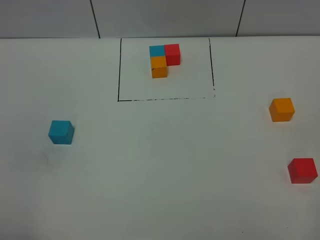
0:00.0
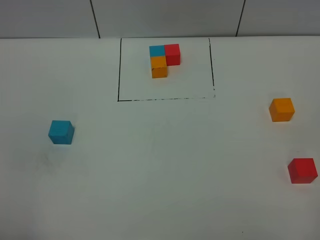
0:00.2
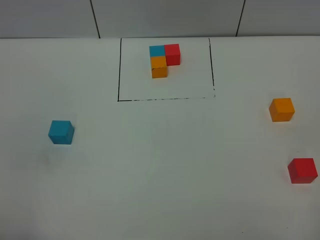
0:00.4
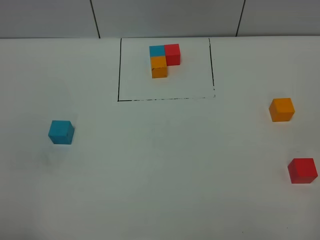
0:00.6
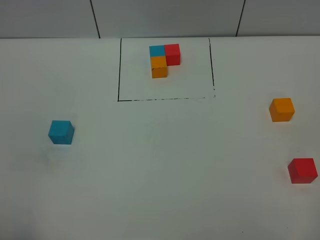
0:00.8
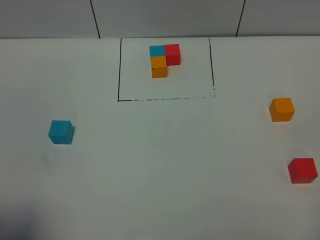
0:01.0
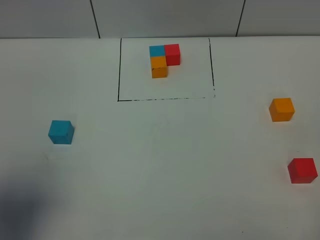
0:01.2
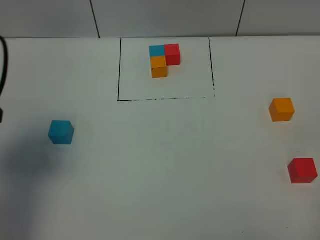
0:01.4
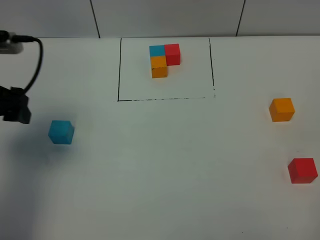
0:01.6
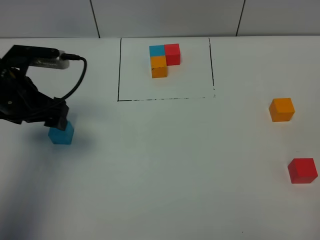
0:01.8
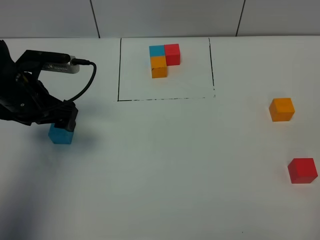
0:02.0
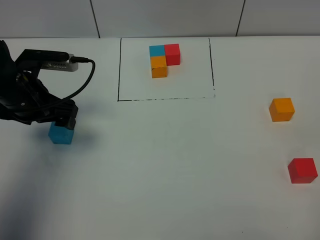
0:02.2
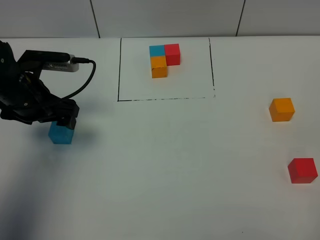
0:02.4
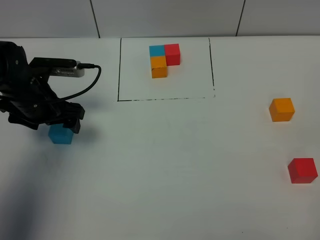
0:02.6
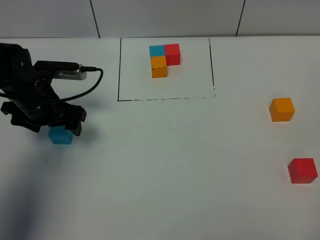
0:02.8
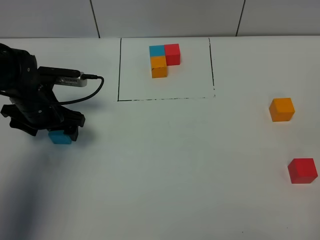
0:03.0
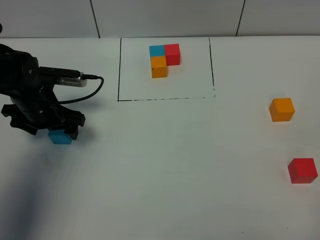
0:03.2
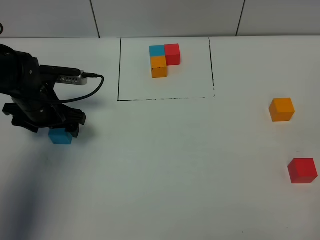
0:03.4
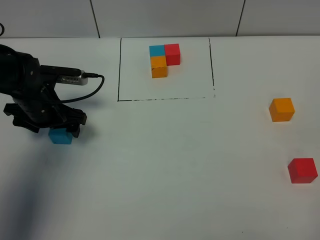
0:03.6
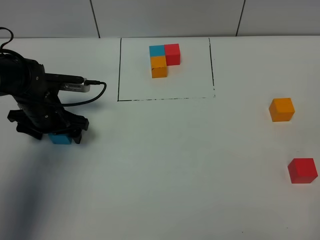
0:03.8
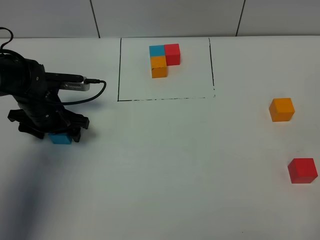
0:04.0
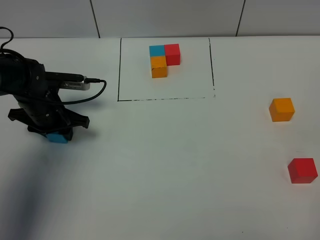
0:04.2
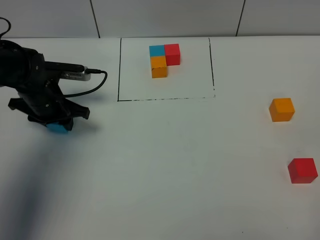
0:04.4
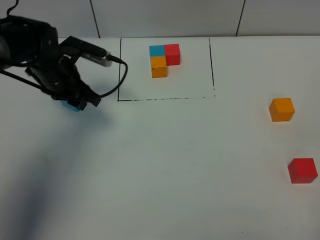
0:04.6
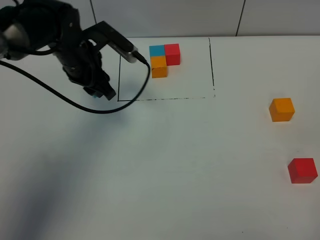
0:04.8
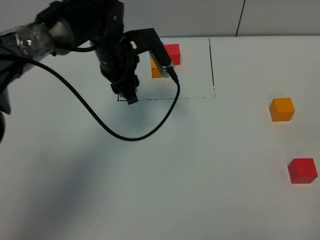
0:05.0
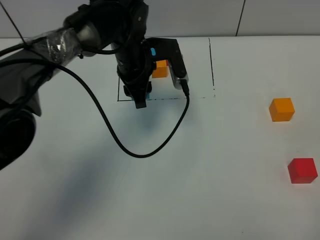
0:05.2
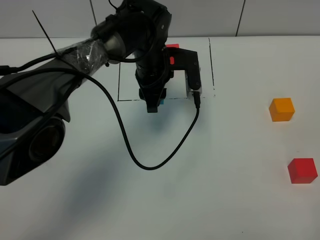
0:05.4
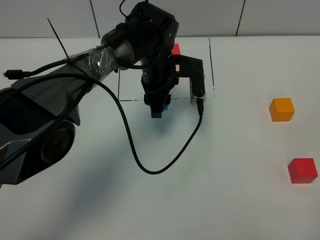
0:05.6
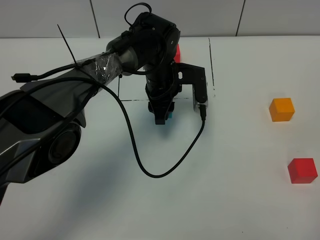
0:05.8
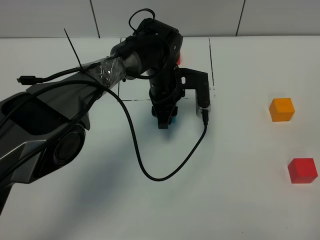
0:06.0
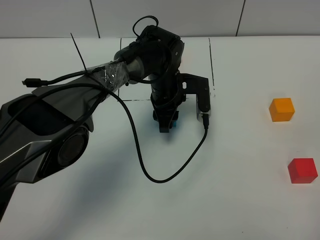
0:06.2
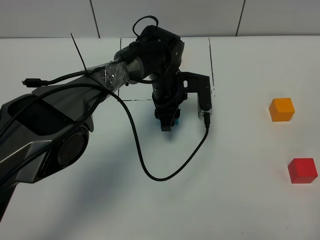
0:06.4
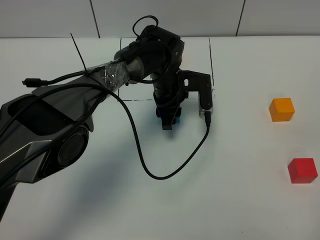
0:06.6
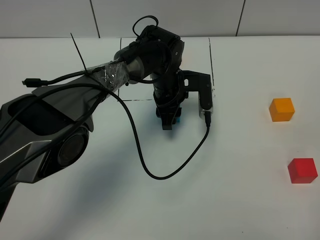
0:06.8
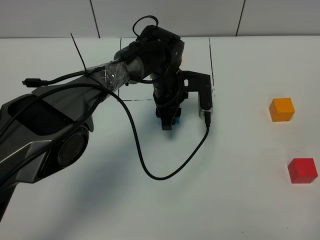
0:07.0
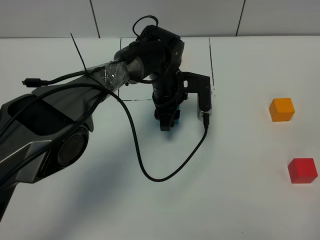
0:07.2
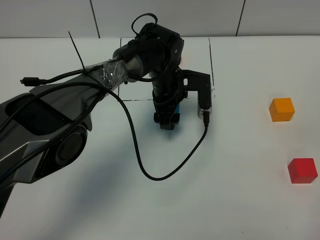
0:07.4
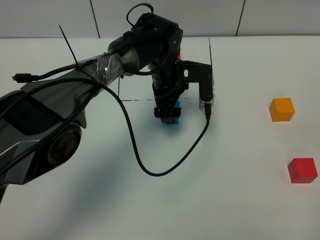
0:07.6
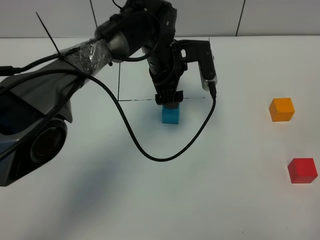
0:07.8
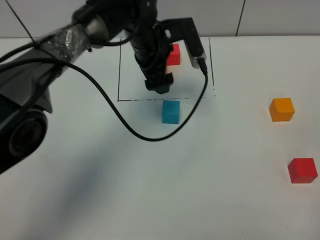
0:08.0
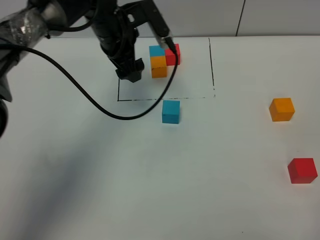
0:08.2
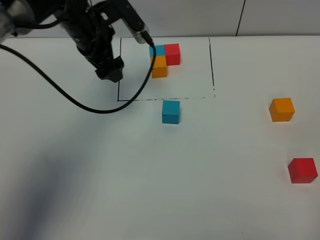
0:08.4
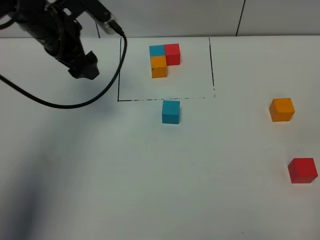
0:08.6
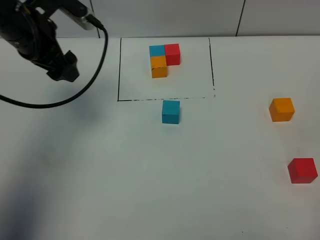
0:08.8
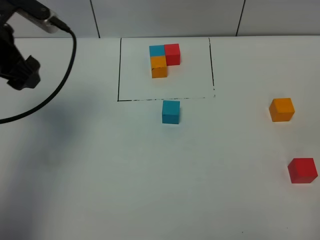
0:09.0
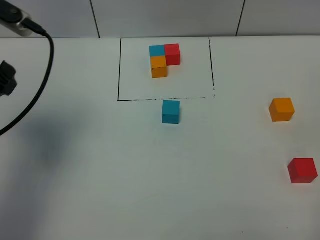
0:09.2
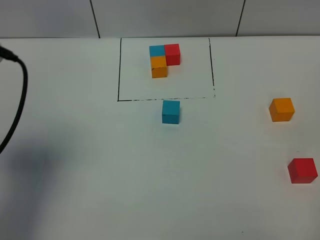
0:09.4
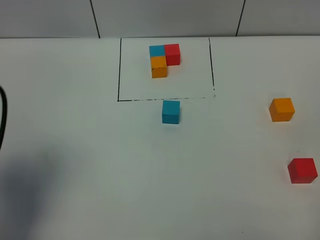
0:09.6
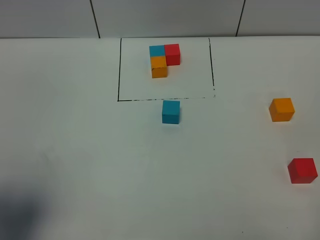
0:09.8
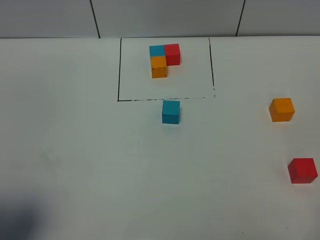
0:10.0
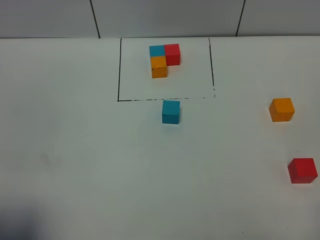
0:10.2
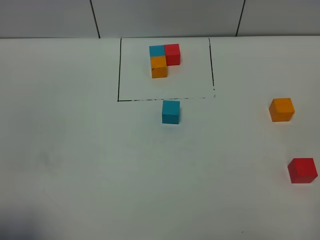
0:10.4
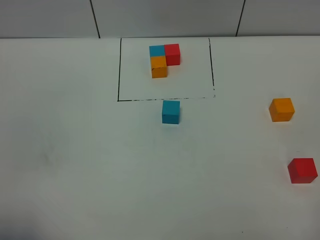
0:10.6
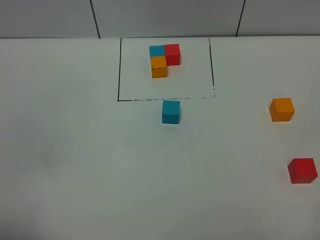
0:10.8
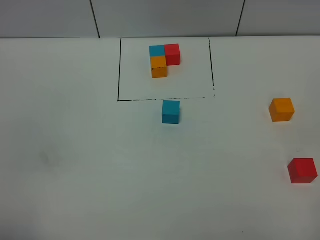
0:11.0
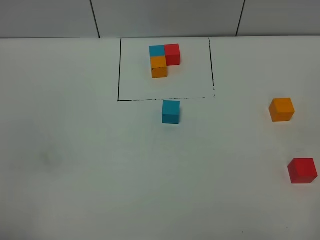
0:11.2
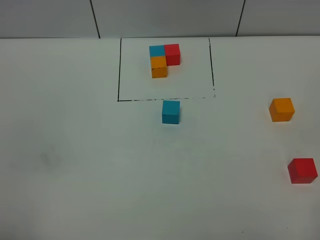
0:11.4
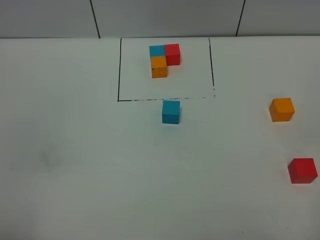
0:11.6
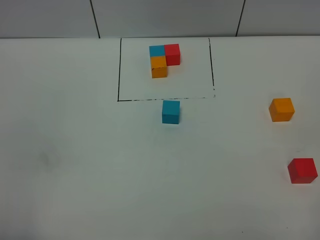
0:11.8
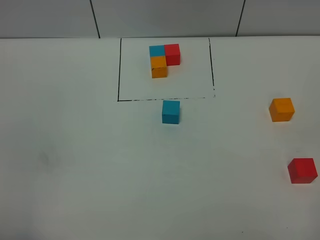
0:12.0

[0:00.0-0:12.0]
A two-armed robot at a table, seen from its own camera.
Task of the whole recording: According to the building block template in front, assemble the scattered blocks together.
Step, 0:00.0 to 0:07.2: Put the blue build block in the center of the table.
0:00.0 to 0:01.6: The left gripper travels forward by approximately 30 cm.
0:01.6 to 0:03.0: The left gripper shifts about 15 cm downward and forward.
0:03.0 to 0:04.4: The left gripper closes.
0:04.4 to 0:06.0: The left gripper goes approximately 25 cm to the right.
0:06.0 to 0:07.6: The left gripper opens.
0:07.6 to 0:09.0: The left gripper moves to the left and upward, approximately 30 cm.
0:09.0 to 0:10.4: The left gripper is displaced backward by roughly 30 cm.

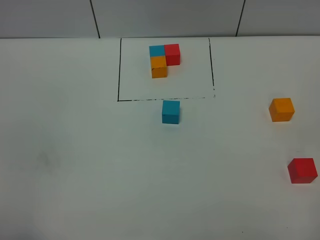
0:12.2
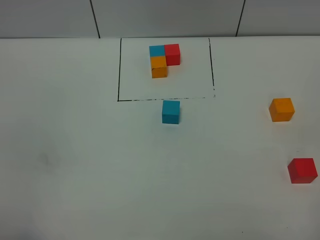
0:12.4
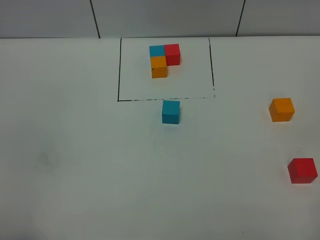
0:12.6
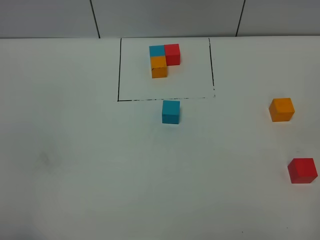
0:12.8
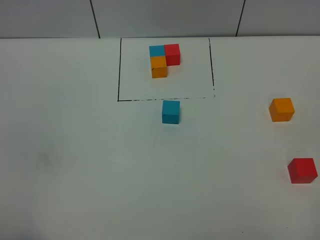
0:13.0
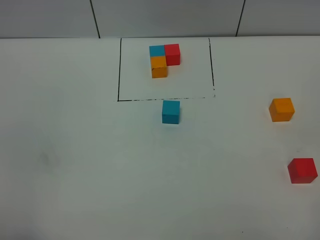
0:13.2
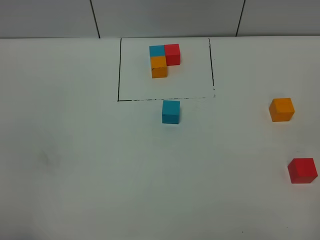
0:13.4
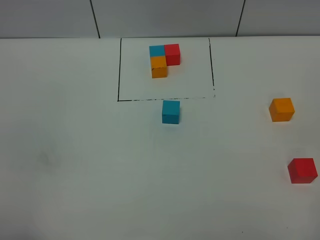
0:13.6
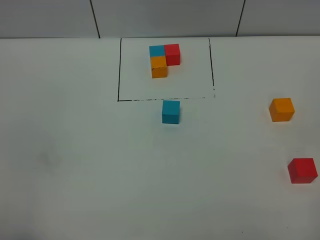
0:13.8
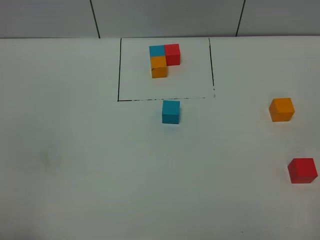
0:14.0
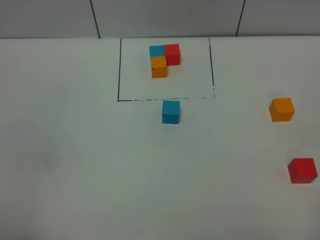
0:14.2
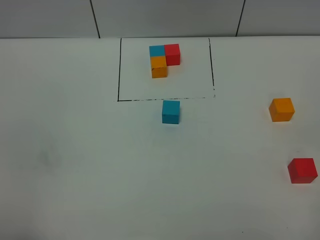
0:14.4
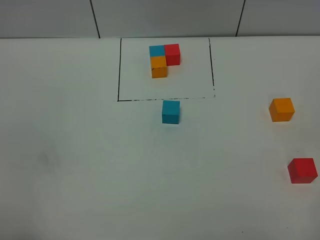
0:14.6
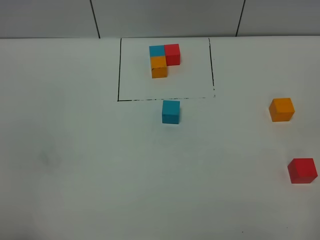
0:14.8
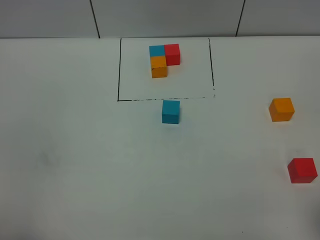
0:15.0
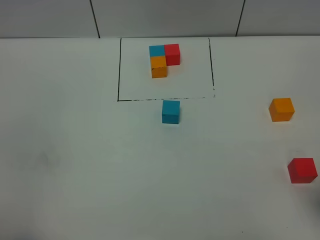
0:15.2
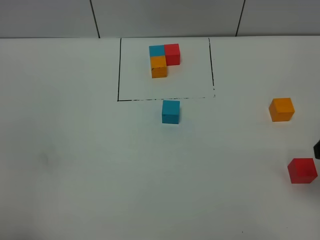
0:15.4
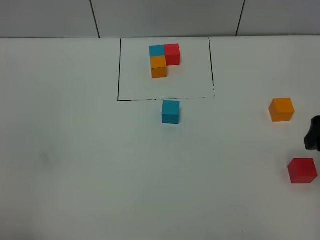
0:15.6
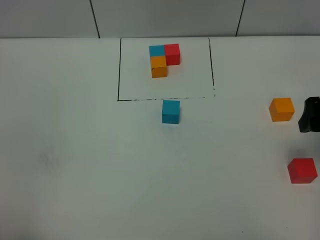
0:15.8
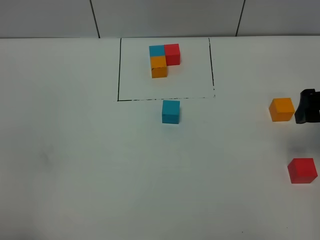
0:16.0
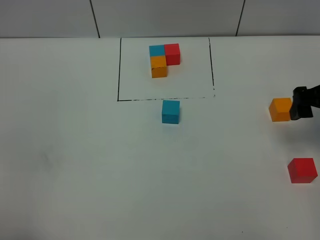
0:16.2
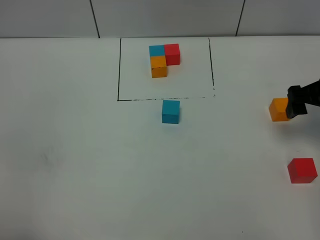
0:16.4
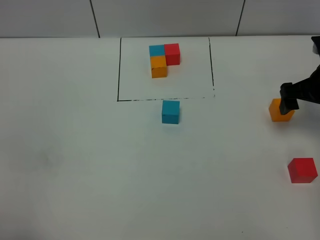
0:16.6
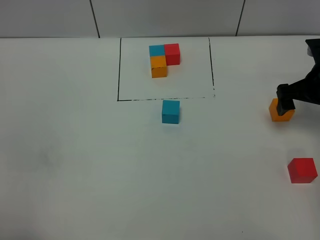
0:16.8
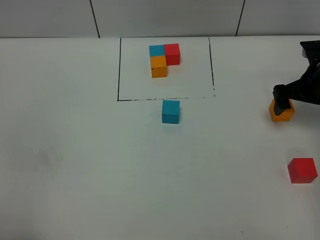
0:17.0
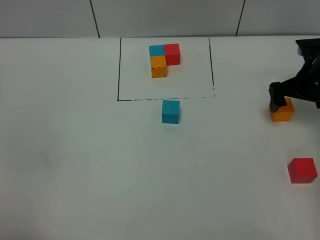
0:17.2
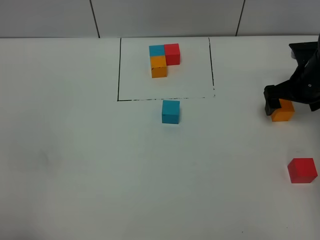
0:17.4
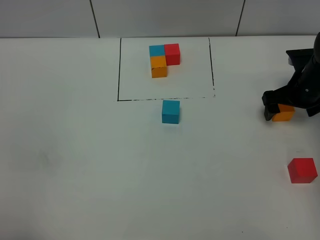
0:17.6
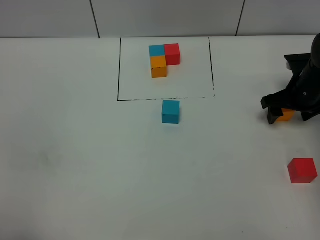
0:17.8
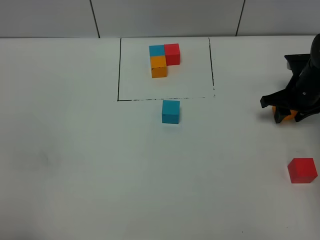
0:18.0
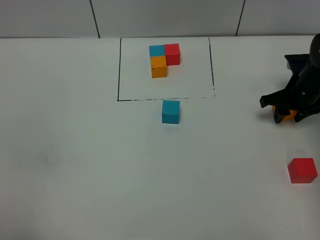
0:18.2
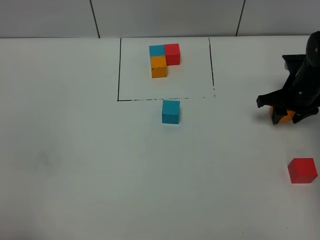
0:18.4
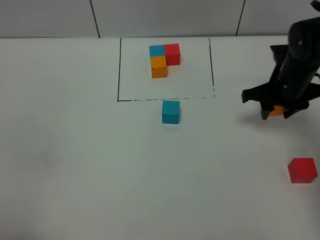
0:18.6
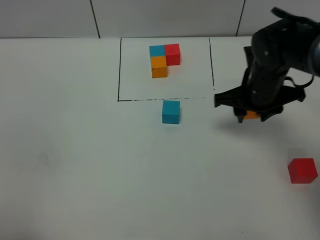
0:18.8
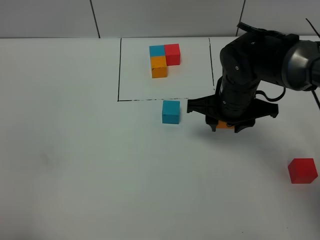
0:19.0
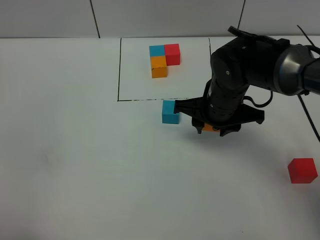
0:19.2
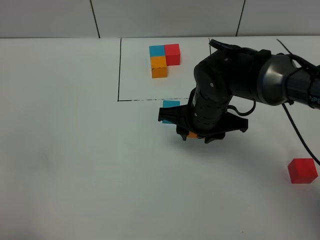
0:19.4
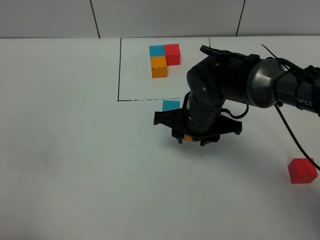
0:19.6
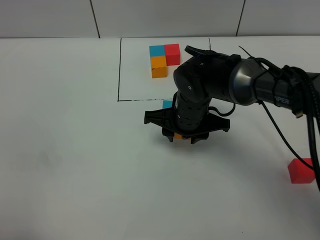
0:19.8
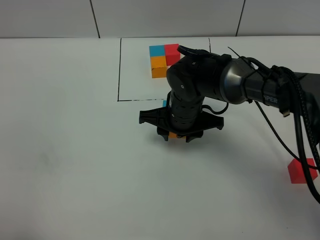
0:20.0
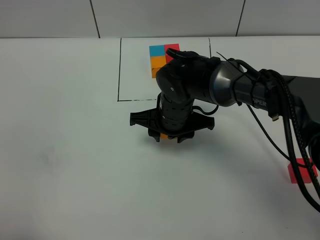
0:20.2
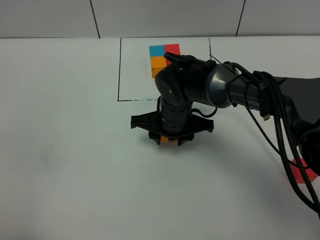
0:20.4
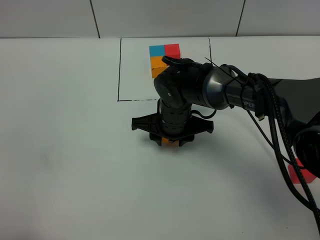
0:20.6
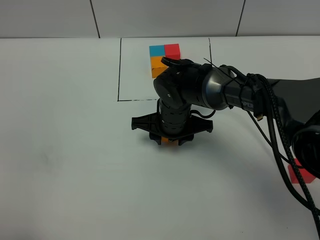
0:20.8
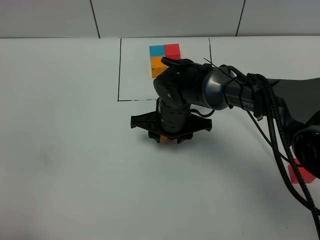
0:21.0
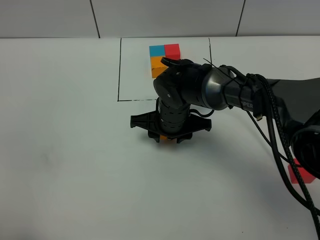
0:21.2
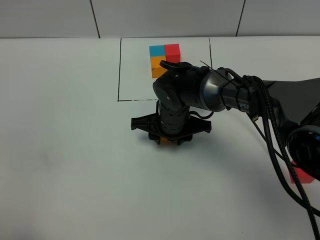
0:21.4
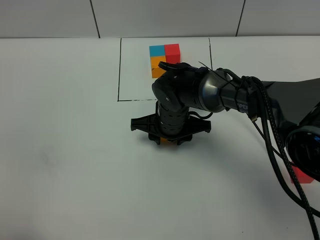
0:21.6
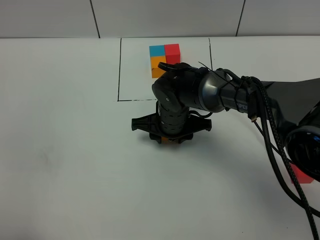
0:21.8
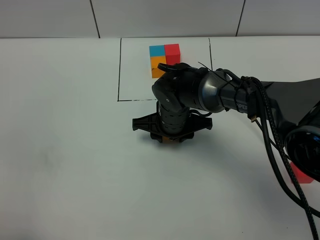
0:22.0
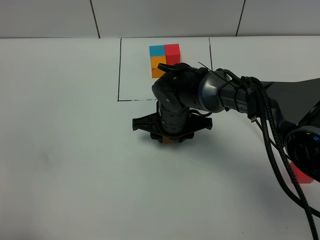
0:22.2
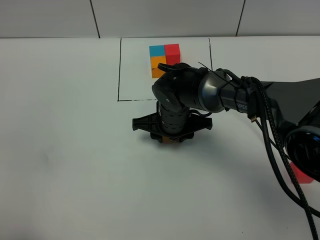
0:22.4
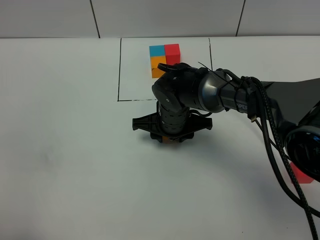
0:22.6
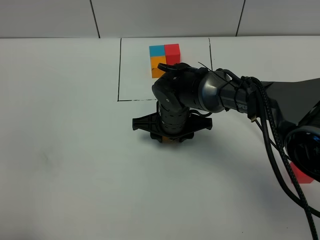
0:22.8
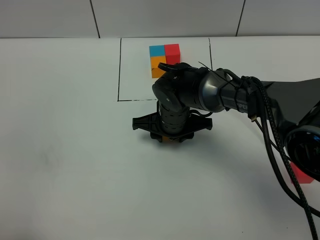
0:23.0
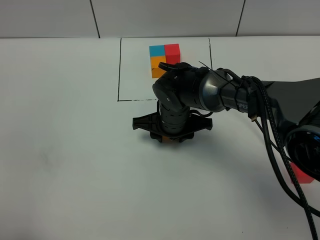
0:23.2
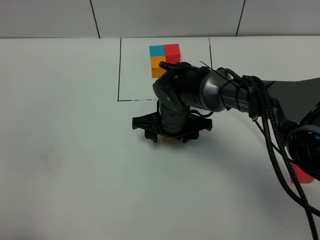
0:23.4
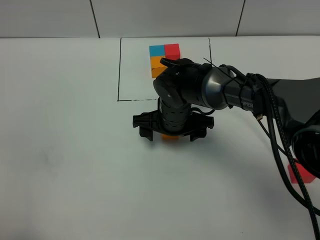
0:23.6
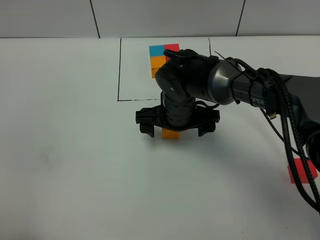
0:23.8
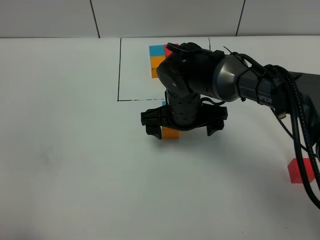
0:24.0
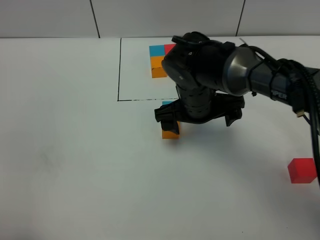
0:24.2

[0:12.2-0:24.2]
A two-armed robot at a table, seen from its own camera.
Task of the whole recording: According to the building block template in front, assemble the scattered blocks together.
Step, 0:12.2 to 0:23.2: Put the orange build block on the behind of the blue build block.
0:12.2 to 0:13.8: Both grippers stay put.
0:15.2 to 0:16.6: The right gripper moves forward and downward, about 25 cm.
0:16.6 to 0:18.2: The right gripper moves downward, about 5 cm, and closes.
0:18.2 to 0:19.8: The right gripper shifts some 25 cm to the left.
0:19.8 to 0:21.2: The grippers make only small movements.
0:21.2 to 0:22.6: Both grippers stay about where they are.
0:22.6 to 0:24.2: The right gripper travels upward by about 10 cm, and opens its fingers.
